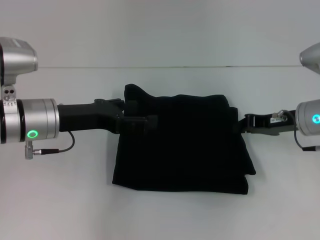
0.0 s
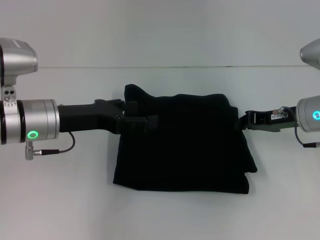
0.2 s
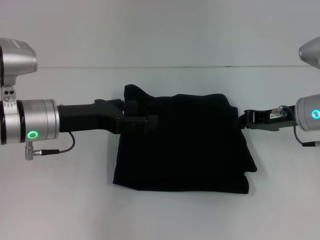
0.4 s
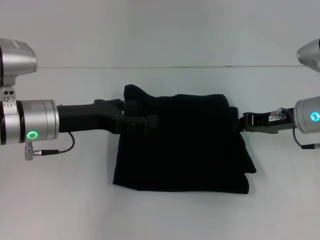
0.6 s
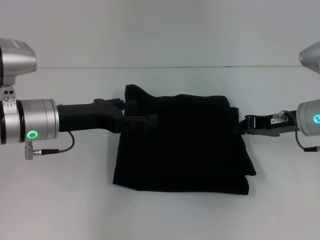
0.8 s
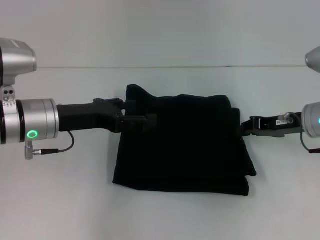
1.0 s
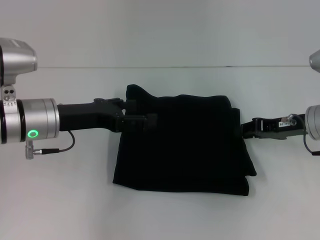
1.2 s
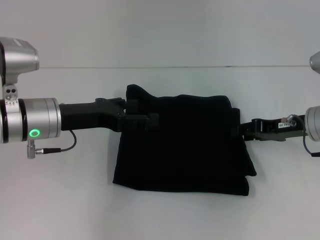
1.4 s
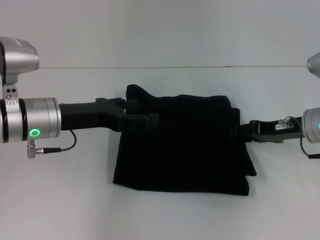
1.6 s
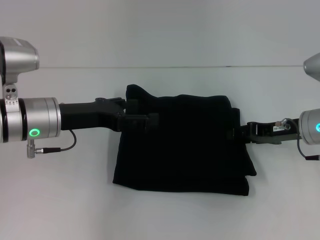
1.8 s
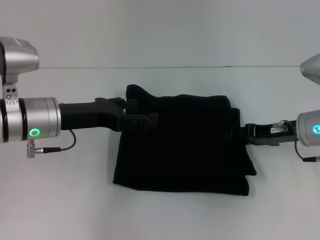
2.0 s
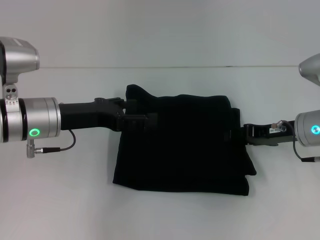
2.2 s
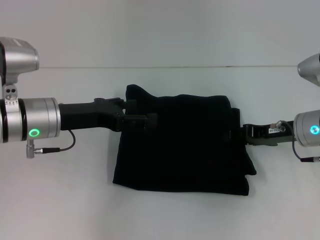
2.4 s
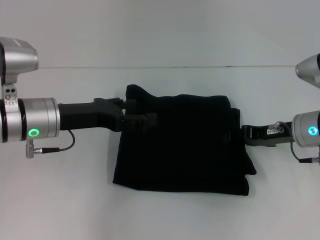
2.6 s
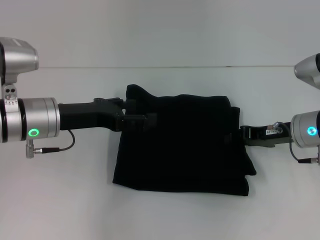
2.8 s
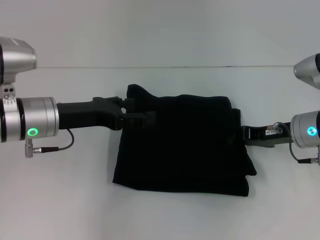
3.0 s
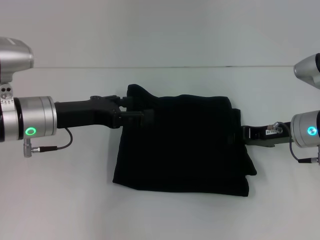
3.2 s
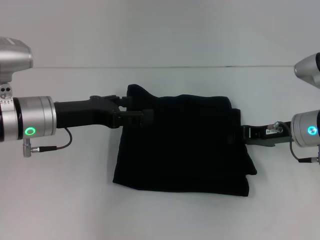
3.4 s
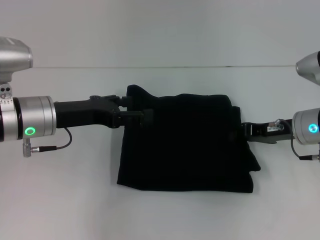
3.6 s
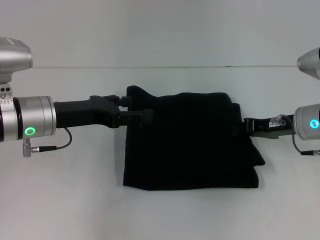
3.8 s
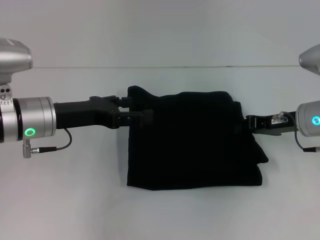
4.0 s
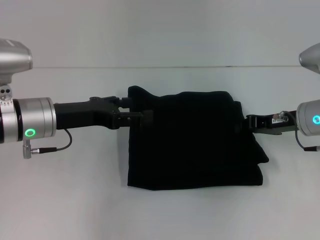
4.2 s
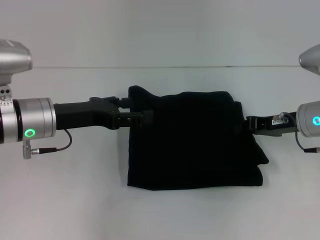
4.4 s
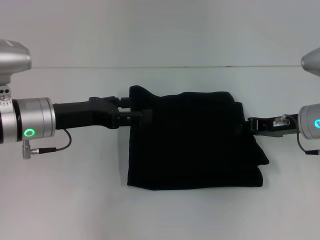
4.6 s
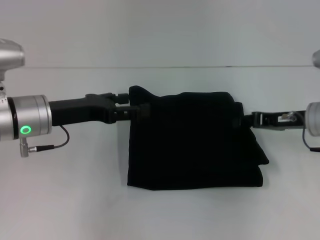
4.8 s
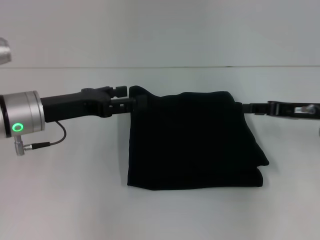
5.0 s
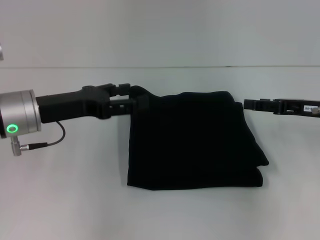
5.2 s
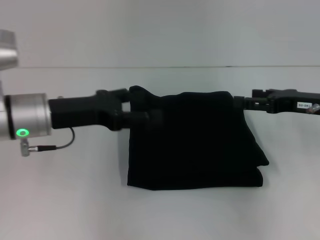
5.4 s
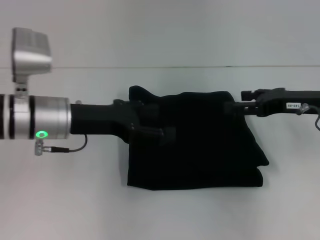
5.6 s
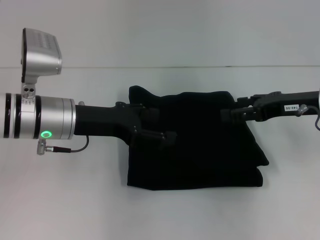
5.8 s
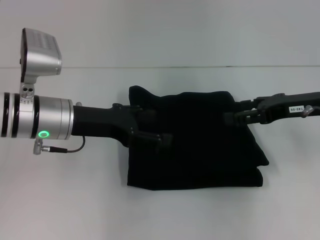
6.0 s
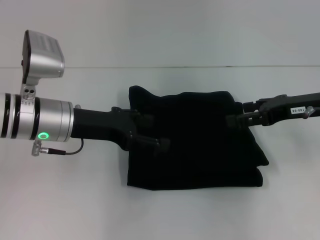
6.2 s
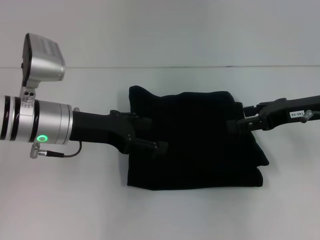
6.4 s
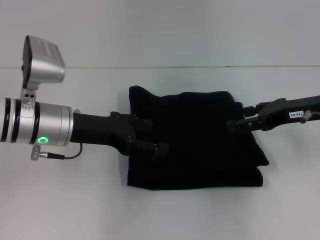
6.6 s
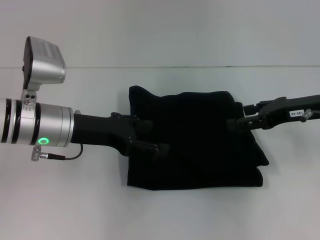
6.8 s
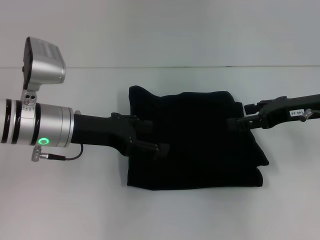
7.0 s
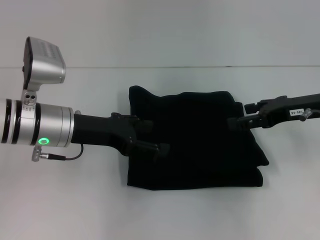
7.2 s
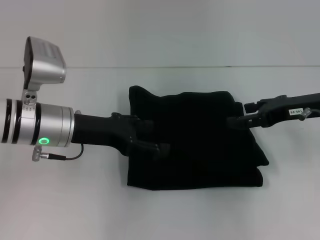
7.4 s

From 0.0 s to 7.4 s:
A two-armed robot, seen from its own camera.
From 0.0 s to 4.4 s: There are only small adjustments of the grippers.
From 4.4 s to 6.0 s: The right gripper heads upward, covering about 5 cm, and opens.
From 6.0 s to 7.4 s: There are only small adjustments of the grippers.

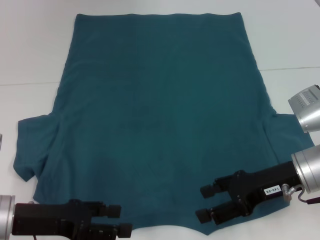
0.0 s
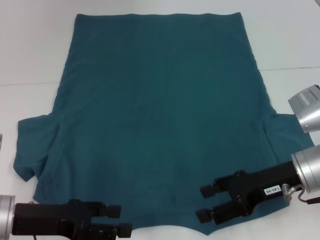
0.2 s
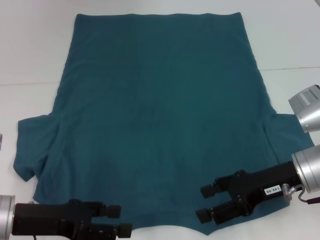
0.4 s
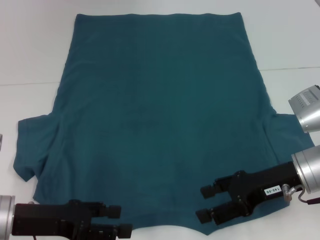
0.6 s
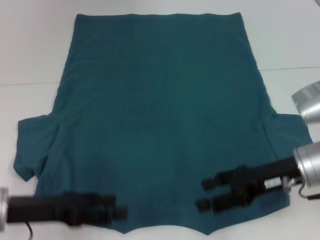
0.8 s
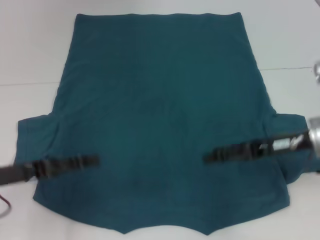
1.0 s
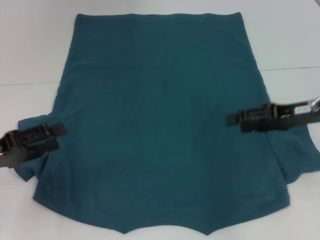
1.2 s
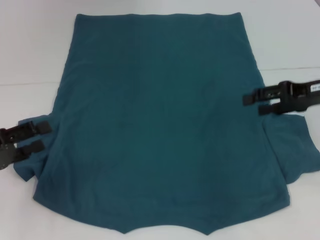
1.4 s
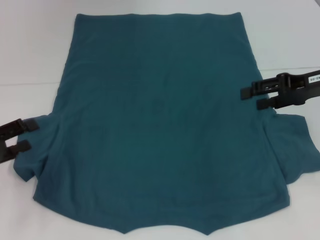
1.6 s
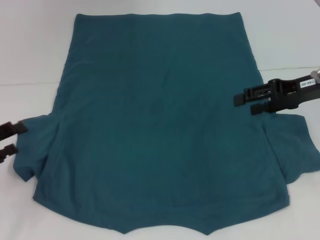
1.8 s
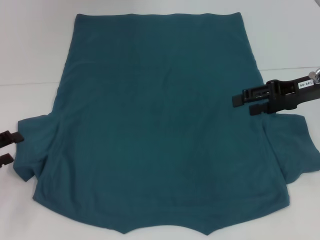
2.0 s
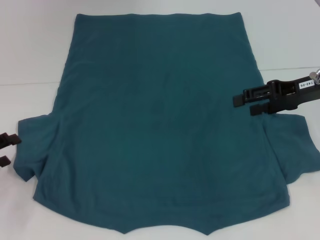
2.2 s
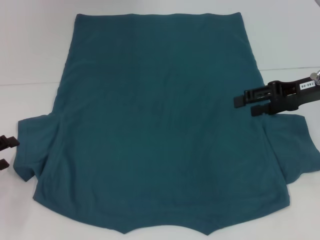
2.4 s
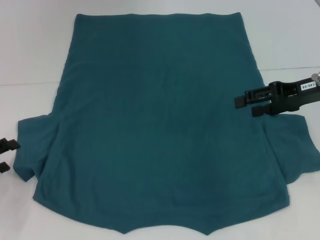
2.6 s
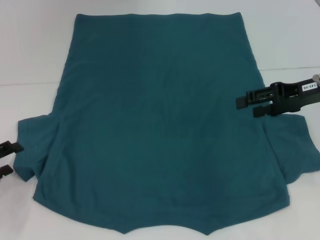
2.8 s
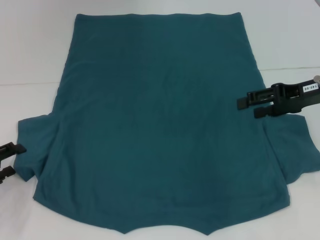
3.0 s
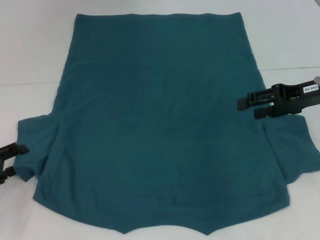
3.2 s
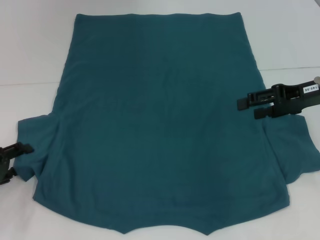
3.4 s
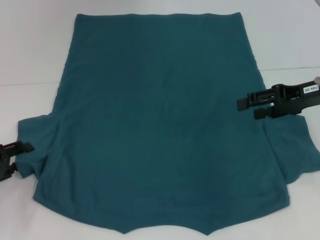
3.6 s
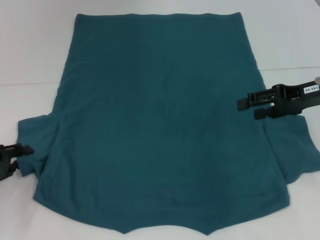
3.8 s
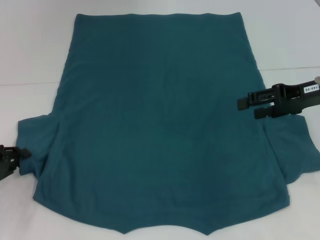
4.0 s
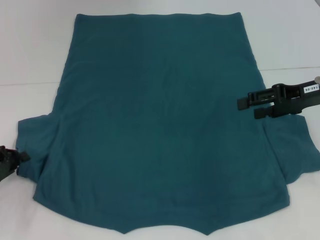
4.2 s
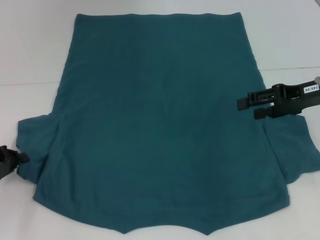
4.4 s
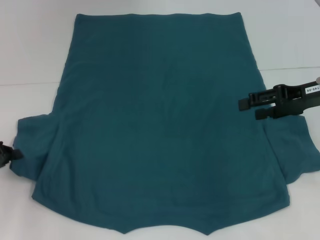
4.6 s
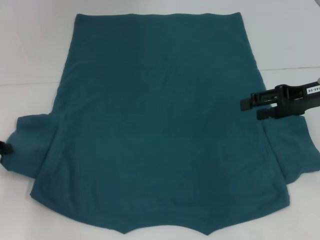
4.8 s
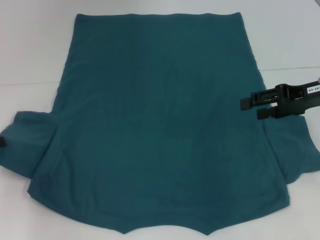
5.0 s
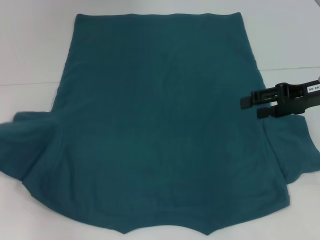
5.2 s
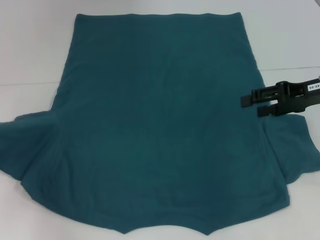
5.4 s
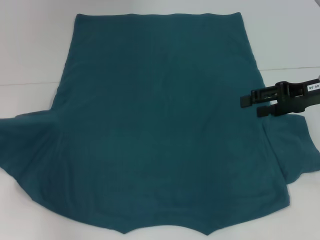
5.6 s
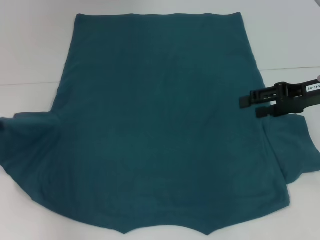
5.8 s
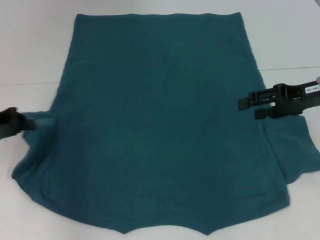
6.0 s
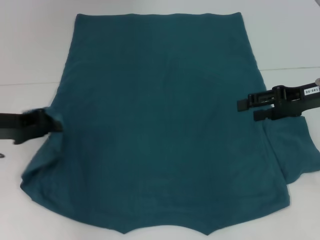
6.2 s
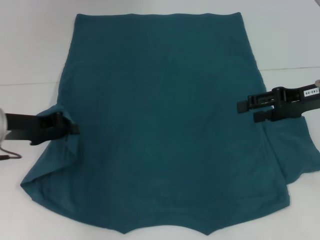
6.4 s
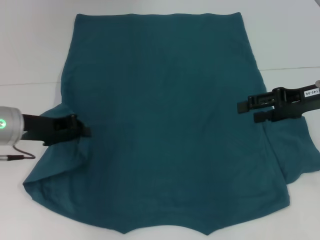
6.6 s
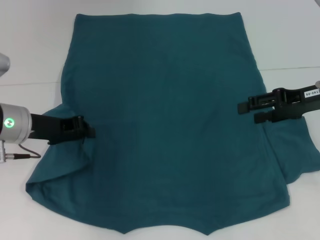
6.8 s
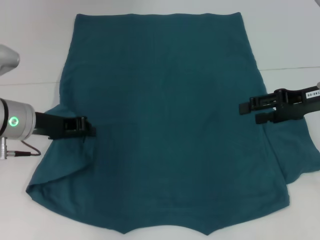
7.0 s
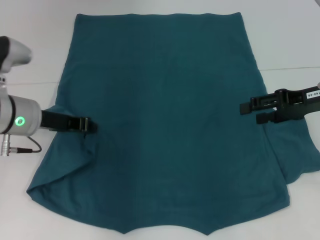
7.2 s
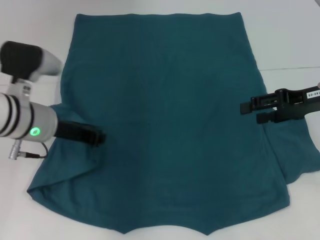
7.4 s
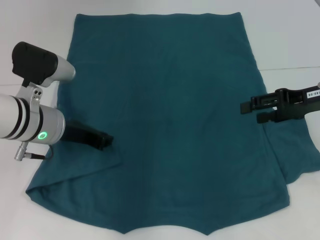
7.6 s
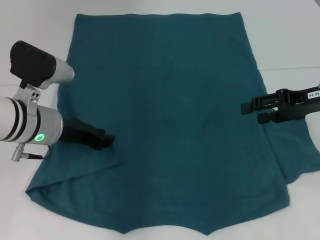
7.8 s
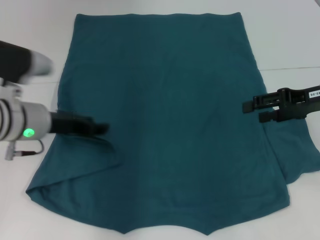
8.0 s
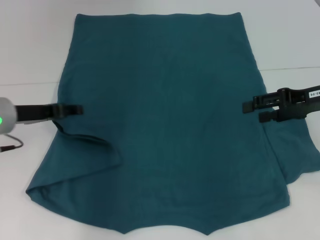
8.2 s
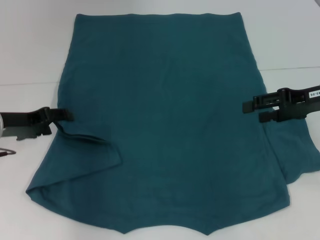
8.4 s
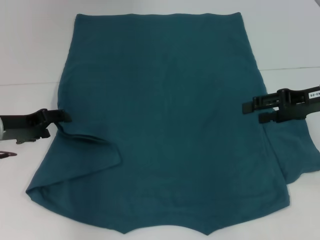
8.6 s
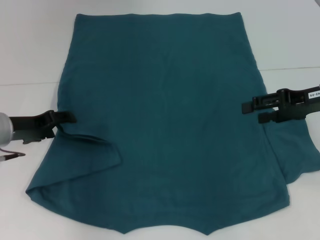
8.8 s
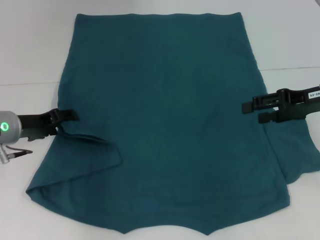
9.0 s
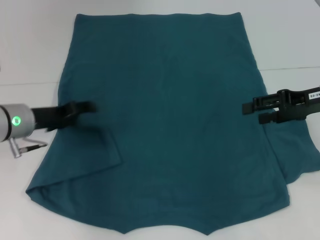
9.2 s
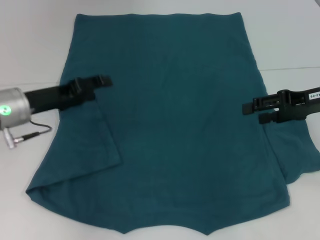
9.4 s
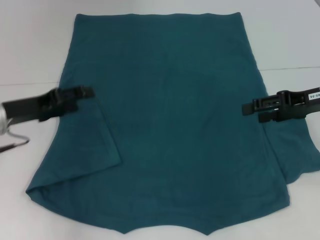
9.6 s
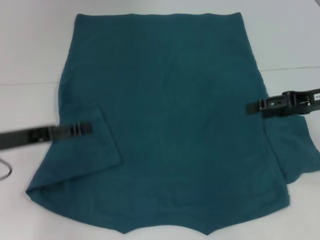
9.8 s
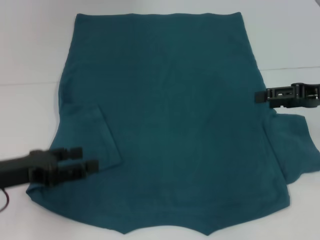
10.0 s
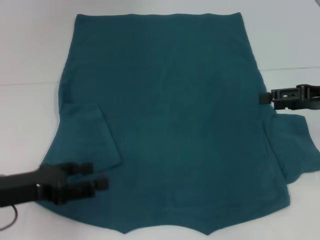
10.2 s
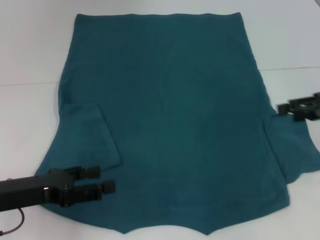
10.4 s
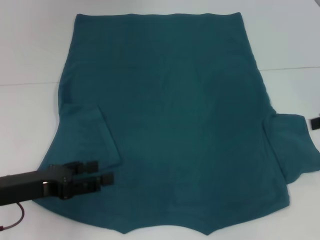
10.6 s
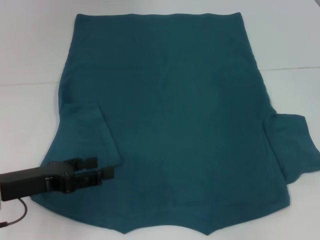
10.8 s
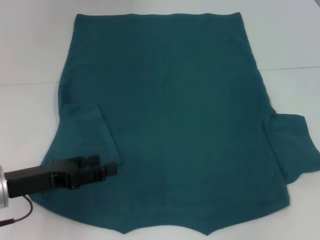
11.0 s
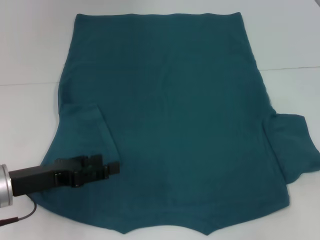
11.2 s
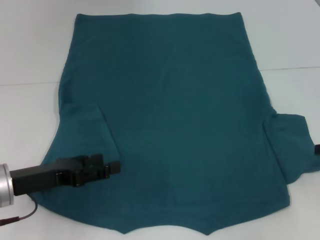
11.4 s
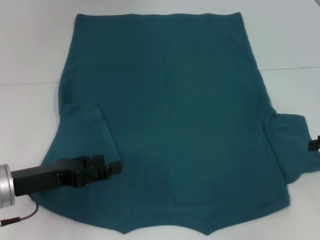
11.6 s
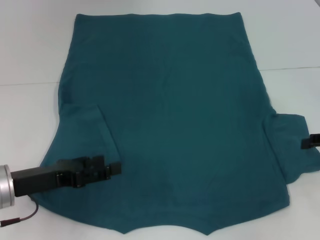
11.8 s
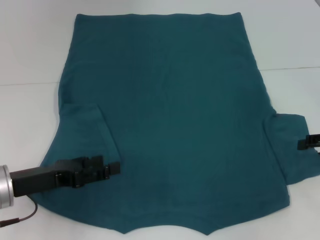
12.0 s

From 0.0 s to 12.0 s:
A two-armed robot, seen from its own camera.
Step, from 0.0 s to 9.4 s: Fold the bottom left sleeve with your left hand.
From 0.0 s to 1.6 s: The left gripper goes roughly 10 cm to the left. Meanwhile the right gripper moves forward, upward and to the right, some 15 cm.
From 1.6 s to 3.0 s: The grippers stay close to where they were, moving slightly.
From 3.0 s to 4.4 s: The left gripper closes its fingers.
From 4.4 s to 6.0 s: The left gripper heads upward, covering roughly 10 cm.
From 6.0 s to 7.6 s: The left gripper travels to the right by roughly 15 cm.
From 7.6 s to 9.0 s: The left gripper heads to the left, covering some 10 cm, and opens up.
From 9.0 s to 10.4 s: The left gripper travels backward by roughly 10 cm, while the right gripper ends up approximately 5 cm from where it was.
From 10.4 s to 12.0 s: The right gripper is displaced downward by roughly 5 cm.

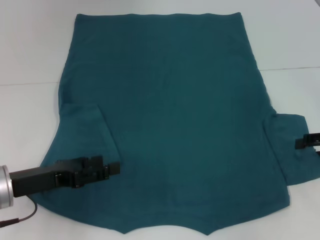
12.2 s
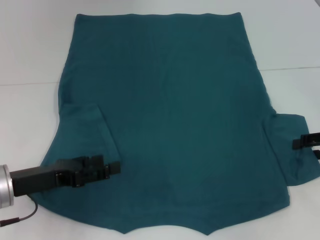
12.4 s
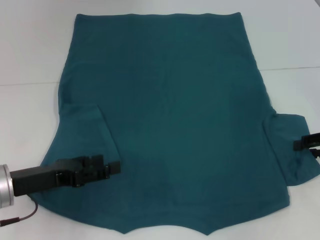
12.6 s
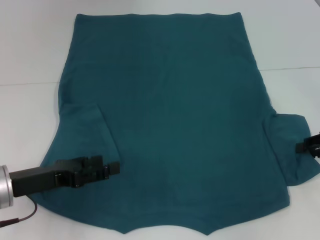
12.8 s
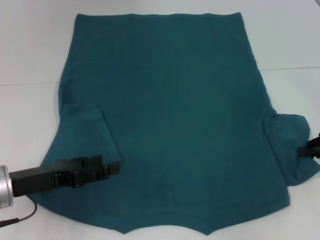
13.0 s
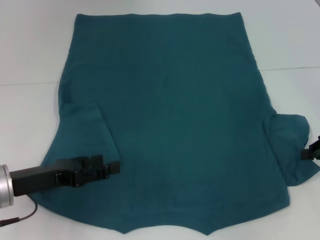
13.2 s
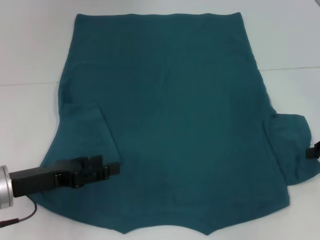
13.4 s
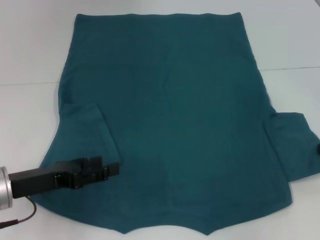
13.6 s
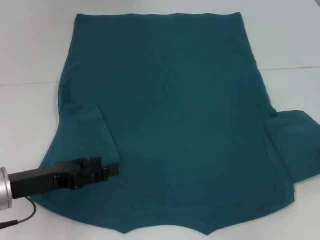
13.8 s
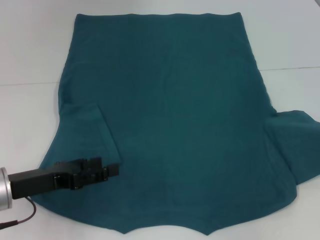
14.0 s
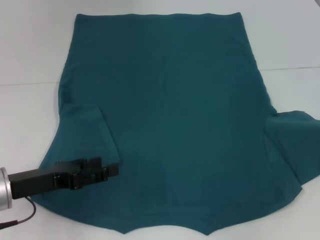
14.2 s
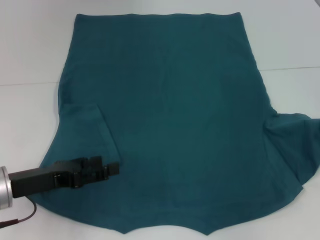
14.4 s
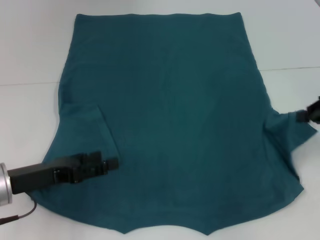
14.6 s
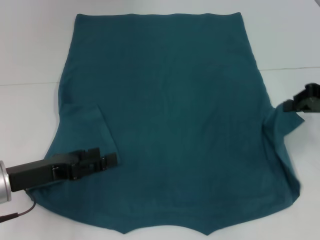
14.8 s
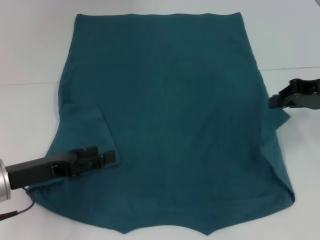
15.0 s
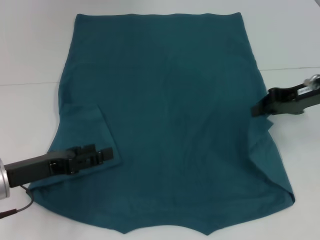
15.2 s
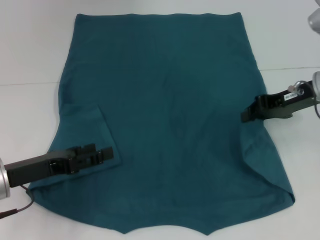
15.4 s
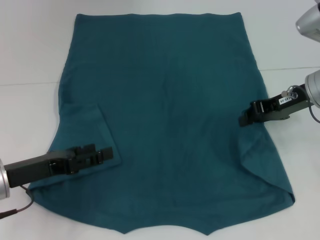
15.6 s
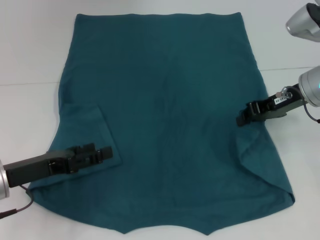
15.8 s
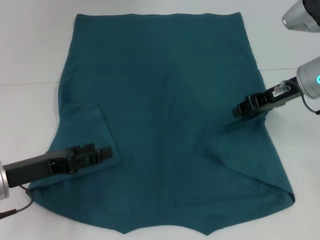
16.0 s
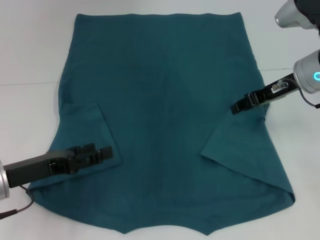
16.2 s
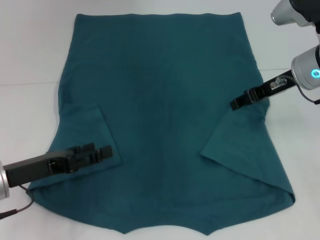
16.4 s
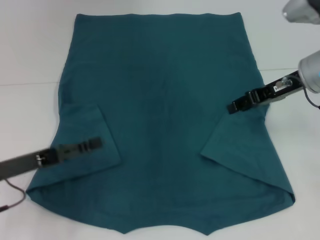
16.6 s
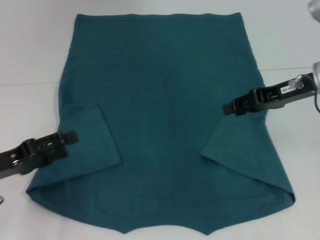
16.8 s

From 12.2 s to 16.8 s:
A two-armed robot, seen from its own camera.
Step, from 12.2 s to 16.6 s: Fold the bottom right sleeve to the right.
From 12.2 s to 13.8 s: The right gripper closes its fingers.
From 13.8 s to 15.2 s: The right gripper is displaced to the left and forward by roughly 15 cm.
From 15.2 s to 16.8 s: The right gripper opens its fingers.
